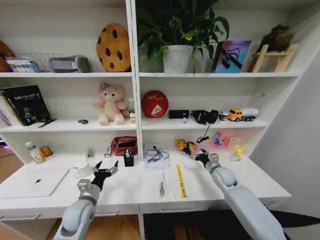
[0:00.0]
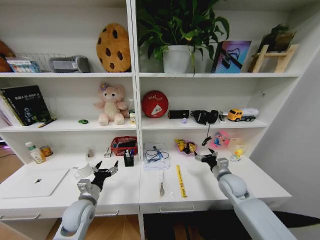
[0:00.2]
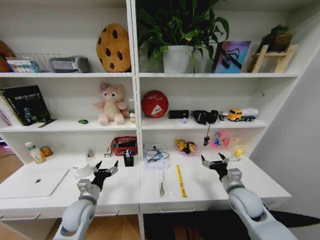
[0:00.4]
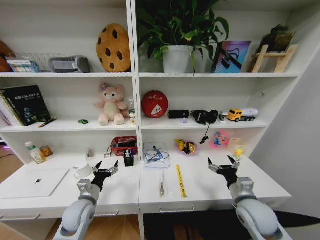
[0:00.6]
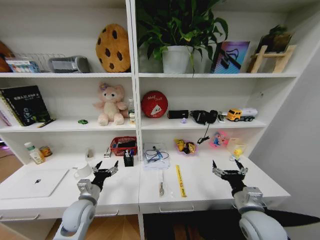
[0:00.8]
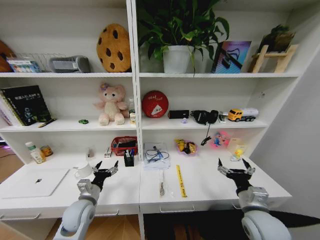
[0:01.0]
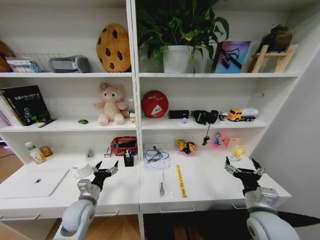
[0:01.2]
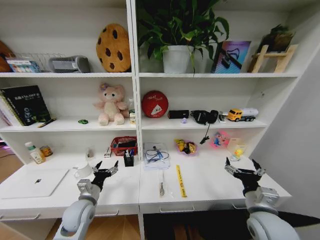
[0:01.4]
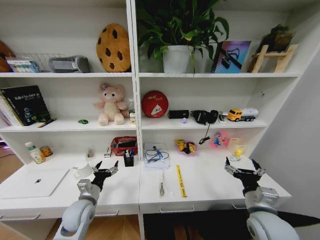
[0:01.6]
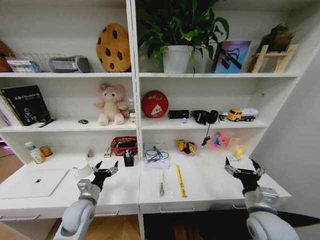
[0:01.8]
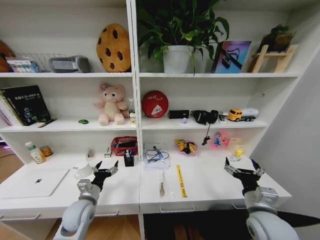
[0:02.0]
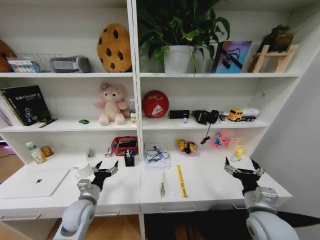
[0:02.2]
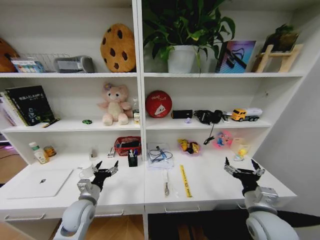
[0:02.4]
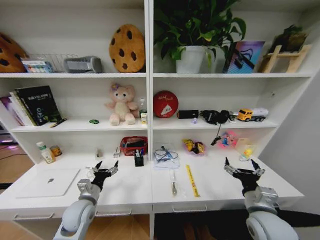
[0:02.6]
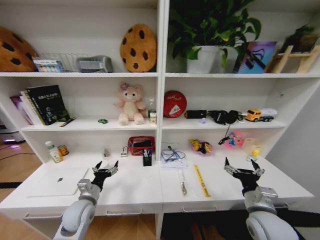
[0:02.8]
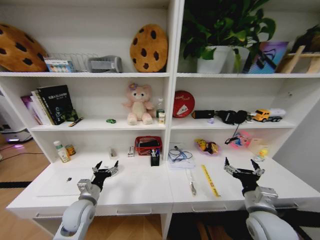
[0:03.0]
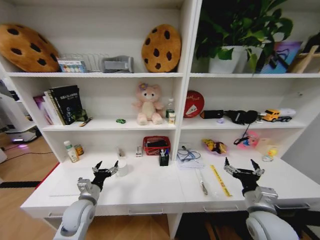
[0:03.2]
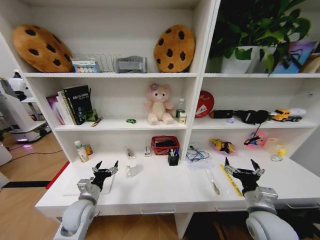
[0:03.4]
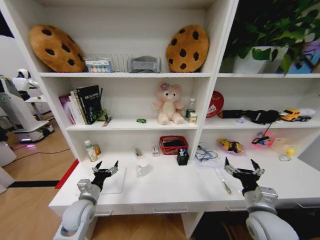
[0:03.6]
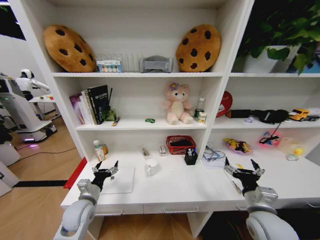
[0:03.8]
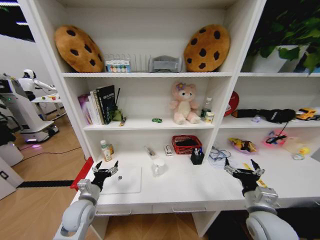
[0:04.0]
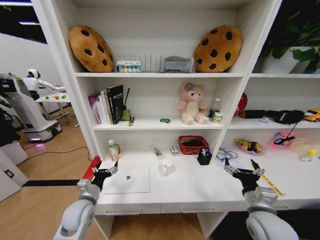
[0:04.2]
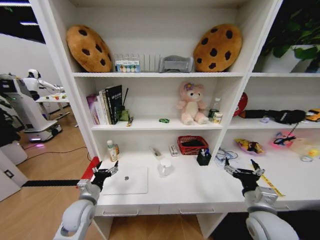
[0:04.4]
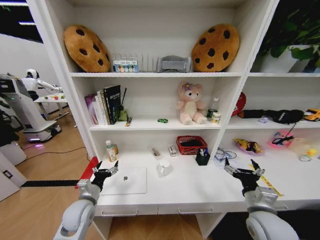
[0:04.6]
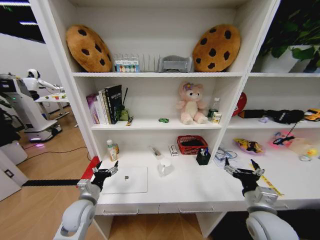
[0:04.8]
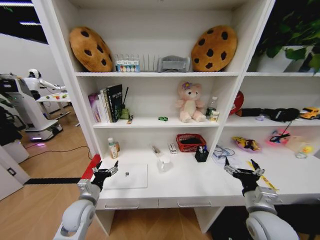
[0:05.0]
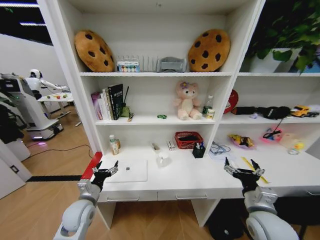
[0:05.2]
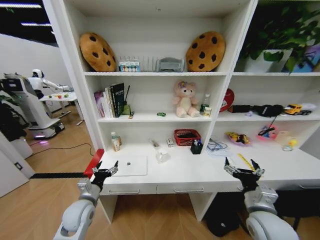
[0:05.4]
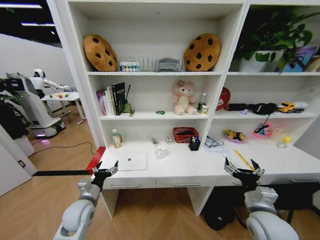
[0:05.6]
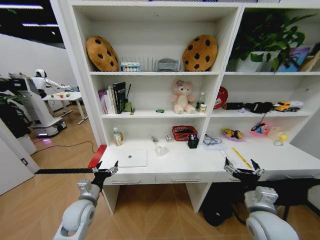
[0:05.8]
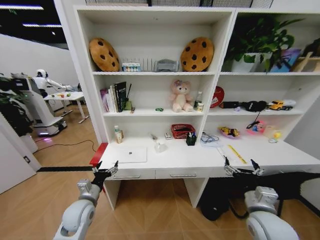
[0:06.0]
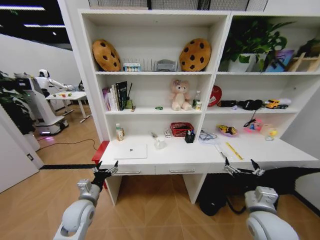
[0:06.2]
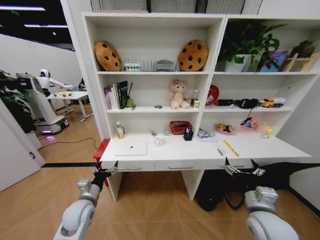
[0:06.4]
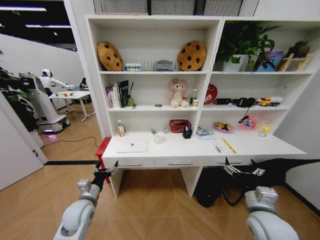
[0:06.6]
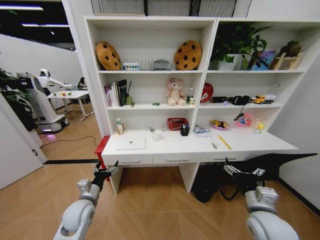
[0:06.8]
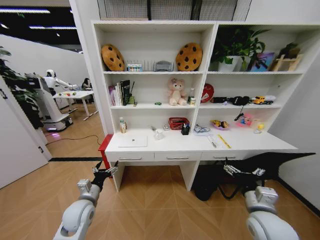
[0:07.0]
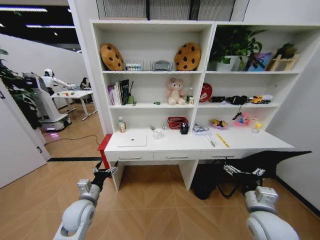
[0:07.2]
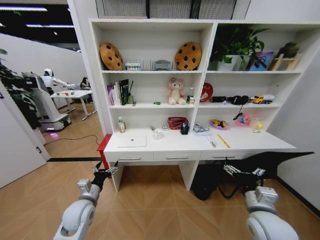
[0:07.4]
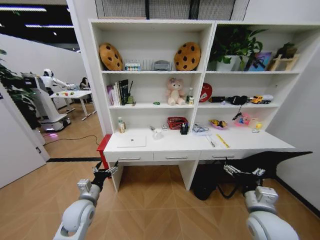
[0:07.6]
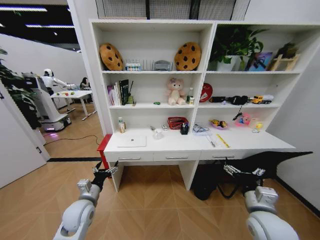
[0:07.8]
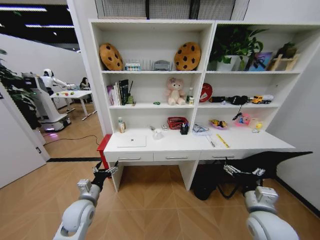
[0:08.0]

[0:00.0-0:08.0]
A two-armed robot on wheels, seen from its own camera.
Task of the whole recording: Organize the objects on the table.
0:00.0 to 0:01.6: The right gripper goes about 20 cm backward.
